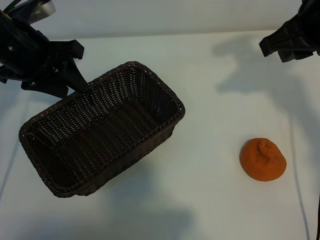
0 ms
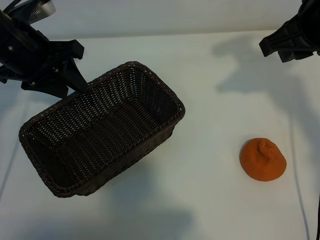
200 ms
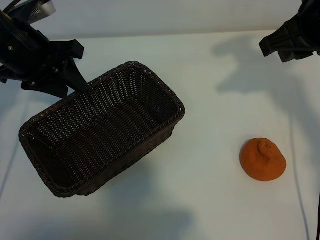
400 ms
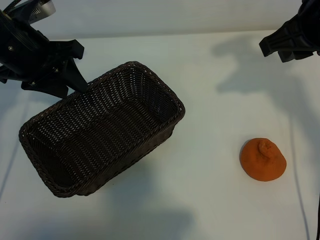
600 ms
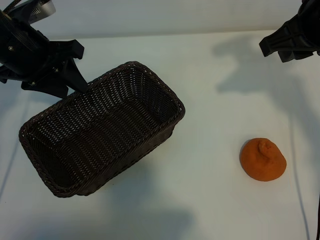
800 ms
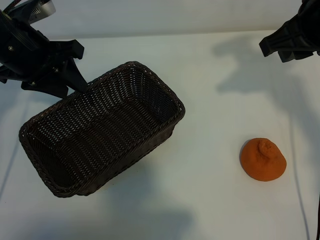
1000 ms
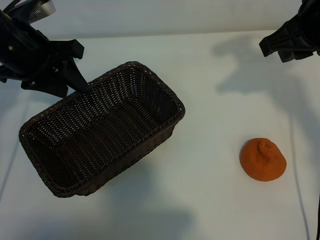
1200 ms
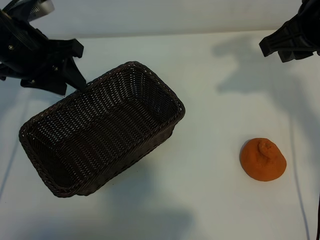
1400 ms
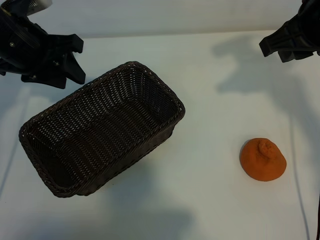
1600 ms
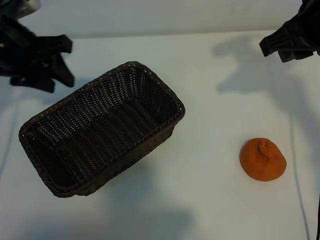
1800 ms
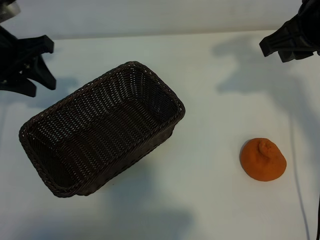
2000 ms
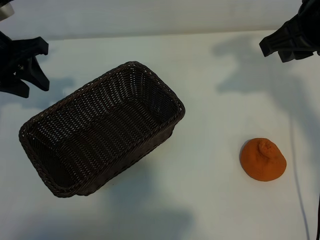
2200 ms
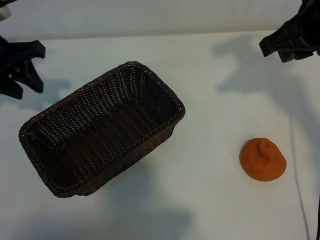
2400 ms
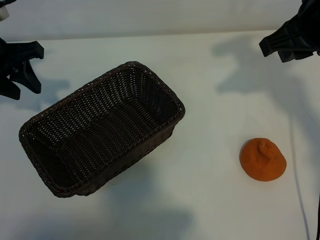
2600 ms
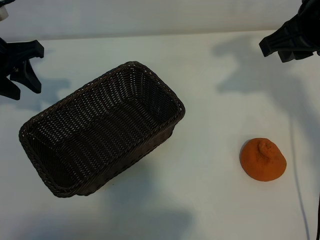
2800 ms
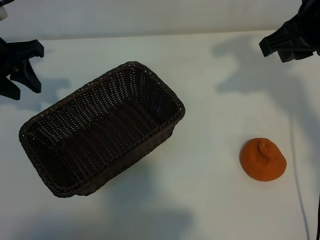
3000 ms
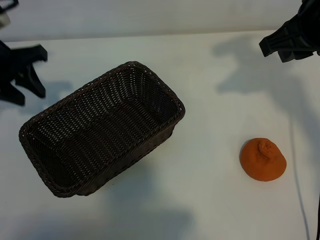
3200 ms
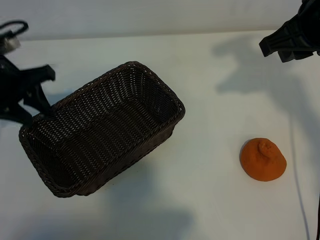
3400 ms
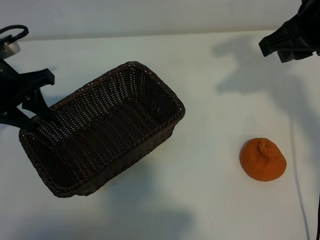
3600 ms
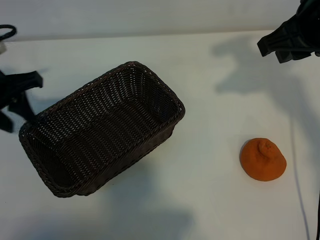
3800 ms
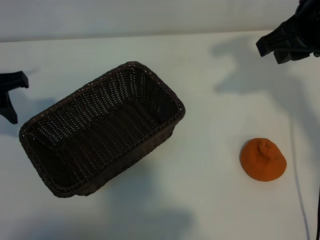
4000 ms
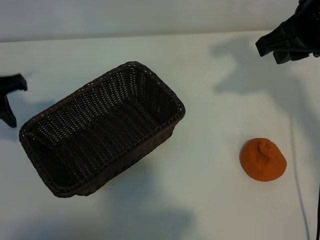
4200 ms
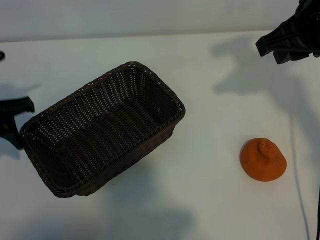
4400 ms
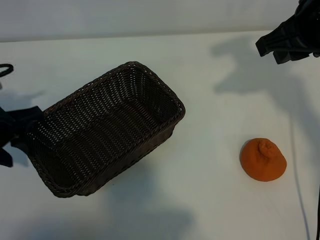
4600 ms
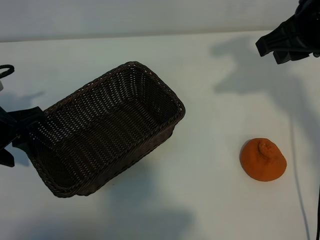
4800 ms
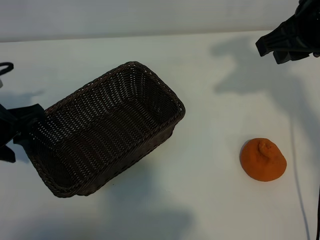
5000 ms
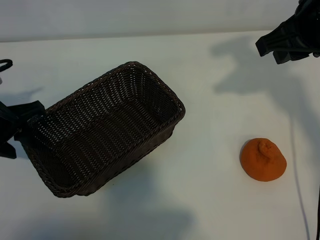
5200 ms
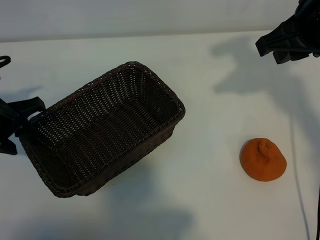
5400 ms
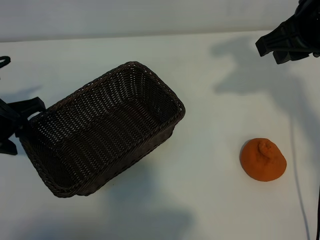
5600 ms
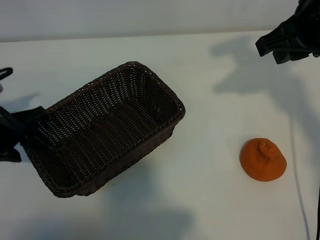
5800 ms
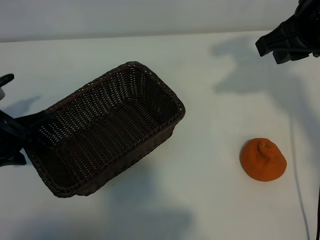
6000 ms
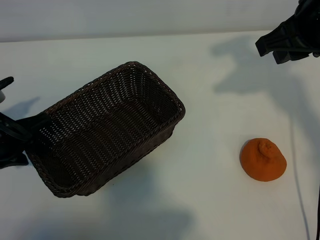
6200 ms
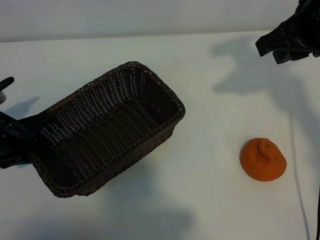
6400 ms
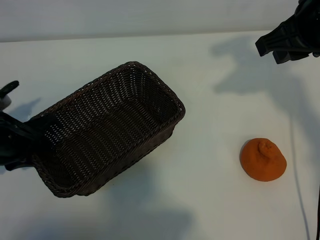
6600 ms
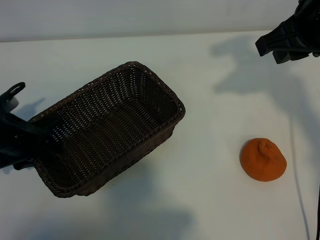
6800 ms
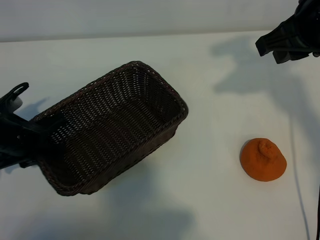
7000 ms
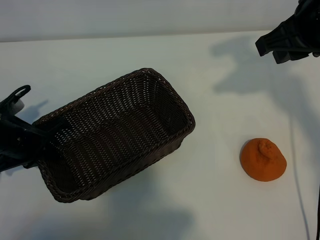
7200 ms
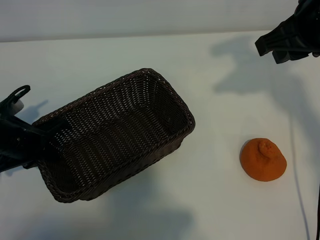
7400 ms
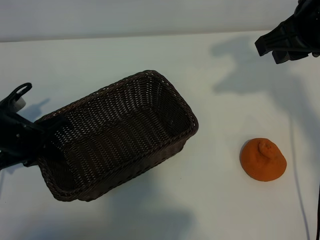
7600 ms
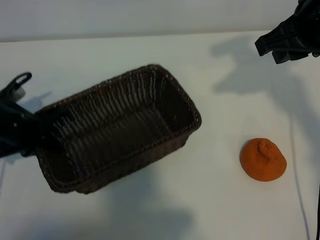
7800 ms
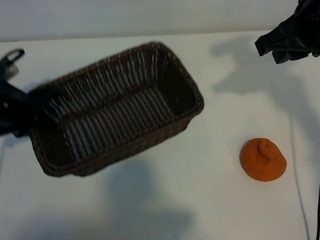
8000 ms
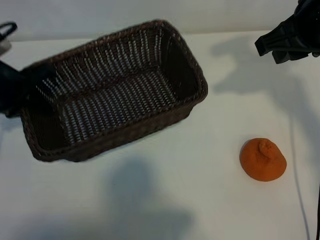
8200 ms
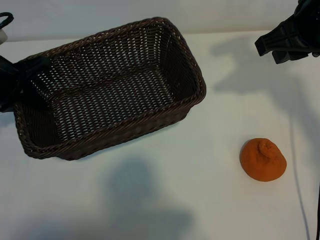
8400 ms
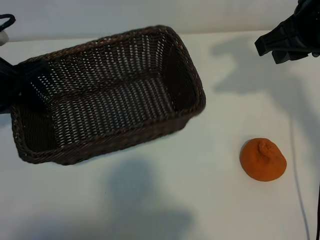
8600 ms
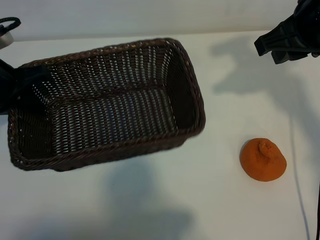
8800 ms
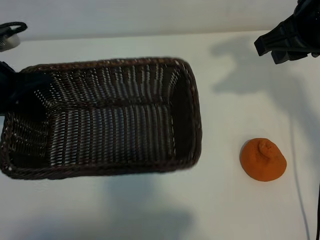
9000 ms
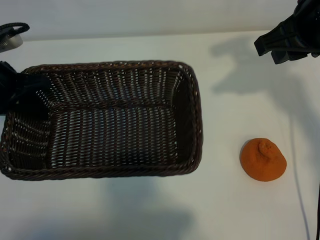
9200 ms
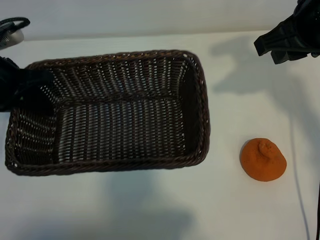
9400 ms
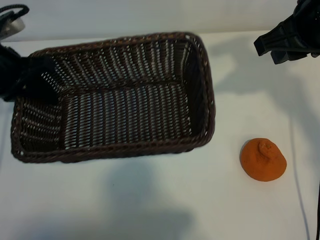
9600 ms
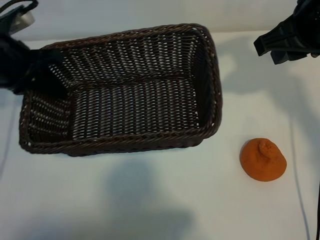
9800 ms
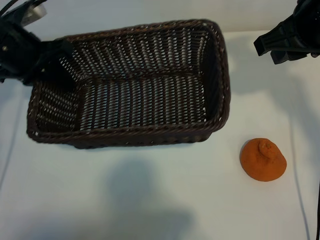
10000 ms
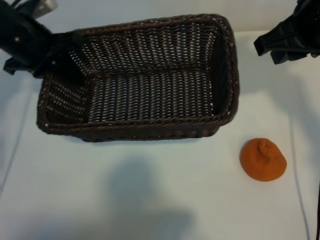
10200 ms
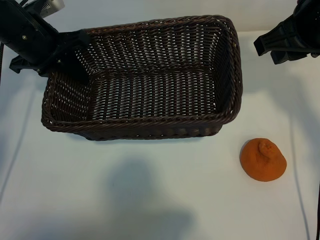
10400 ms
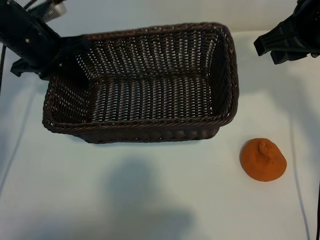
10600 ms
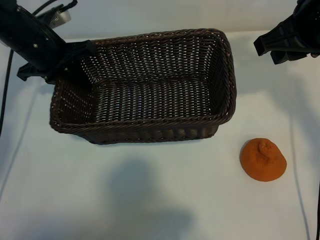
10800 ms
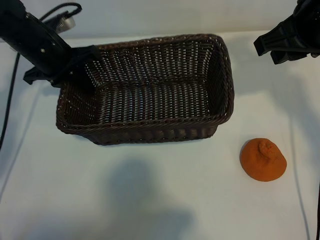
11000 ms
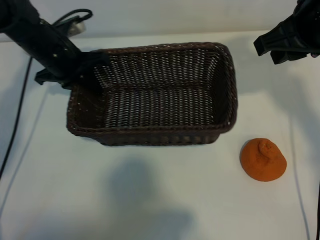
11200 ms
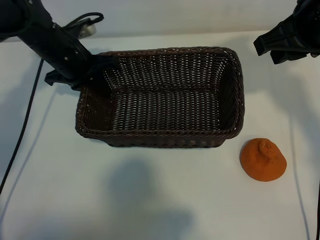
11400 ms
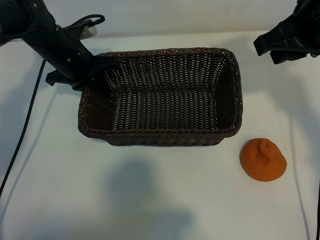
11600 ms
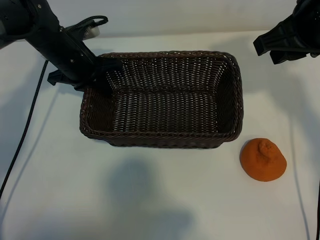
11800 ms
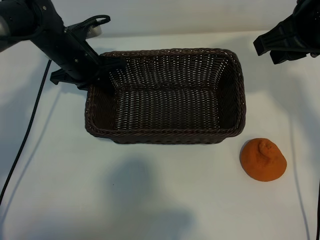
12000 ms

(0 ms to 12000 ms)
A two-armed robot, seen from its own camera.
Task of the whole recording: pick up the orange and put it into the basket.
Step, 1200 ms - 7000 ms: Grasp the basket with left gripper.

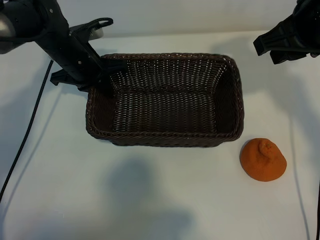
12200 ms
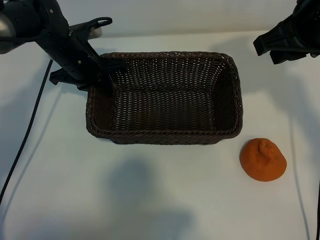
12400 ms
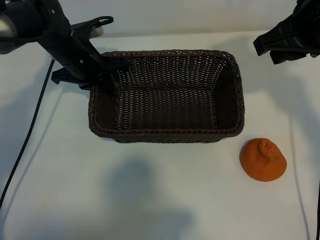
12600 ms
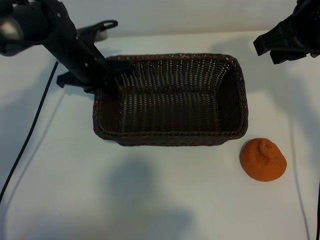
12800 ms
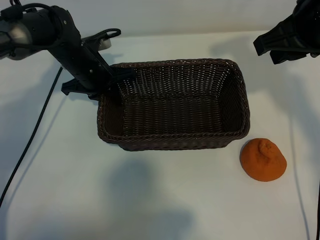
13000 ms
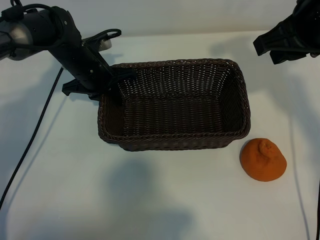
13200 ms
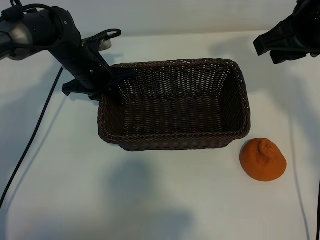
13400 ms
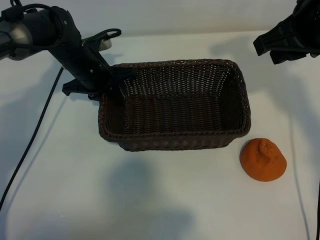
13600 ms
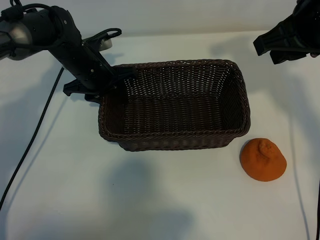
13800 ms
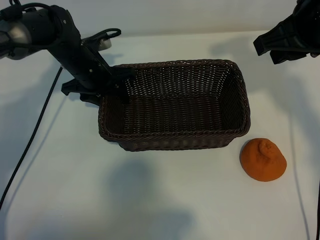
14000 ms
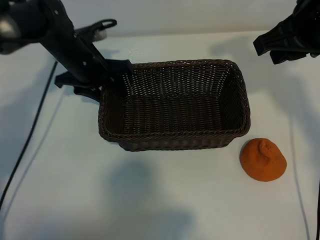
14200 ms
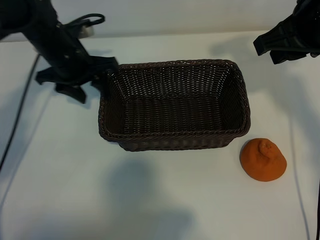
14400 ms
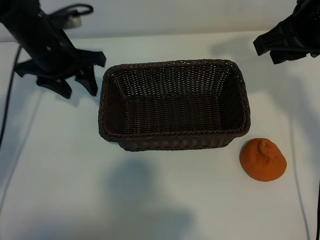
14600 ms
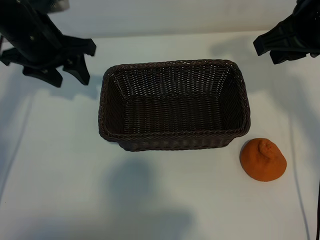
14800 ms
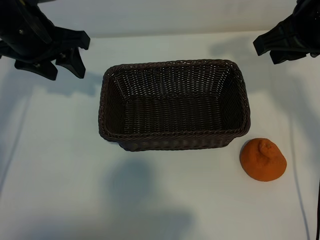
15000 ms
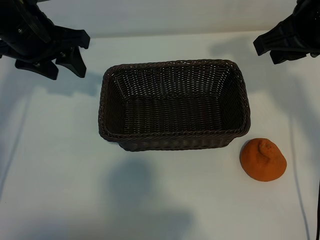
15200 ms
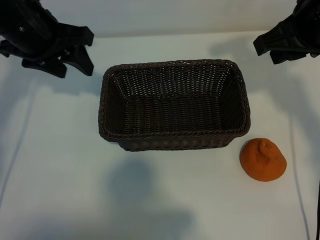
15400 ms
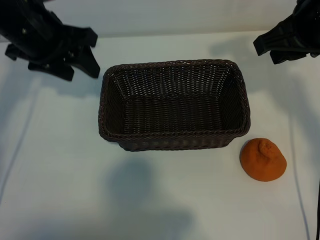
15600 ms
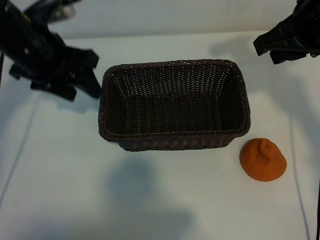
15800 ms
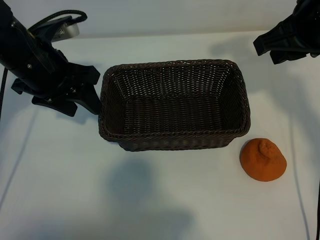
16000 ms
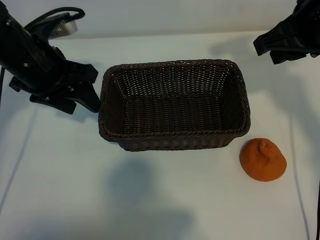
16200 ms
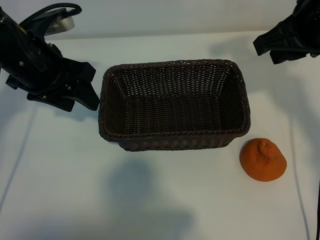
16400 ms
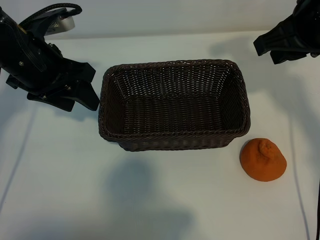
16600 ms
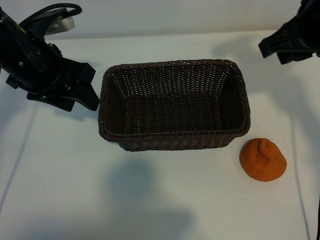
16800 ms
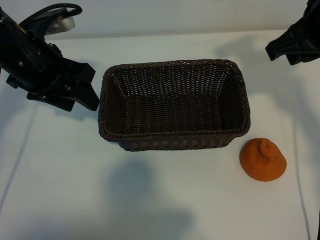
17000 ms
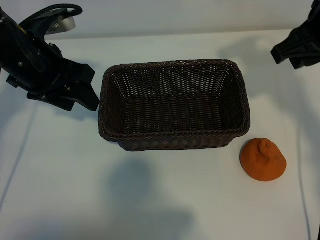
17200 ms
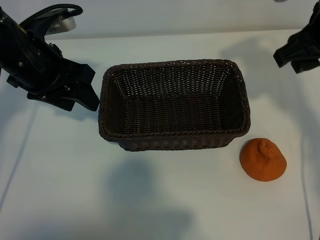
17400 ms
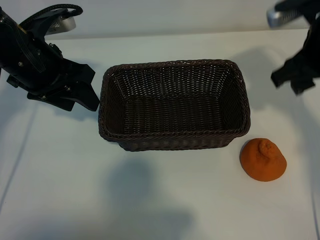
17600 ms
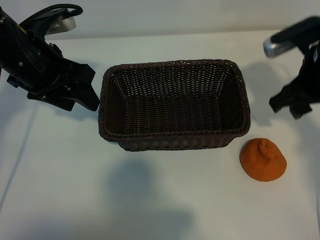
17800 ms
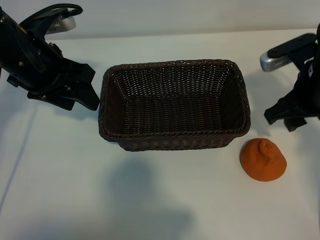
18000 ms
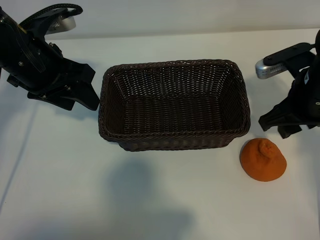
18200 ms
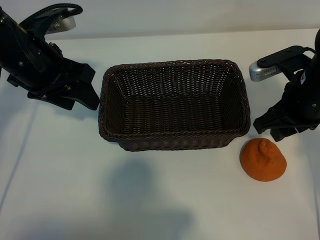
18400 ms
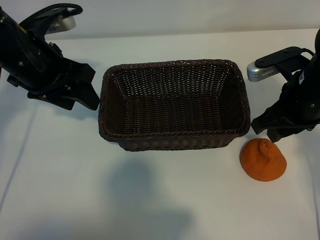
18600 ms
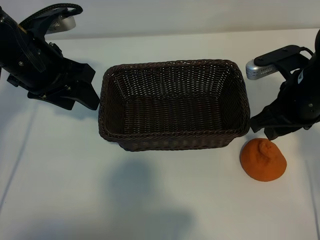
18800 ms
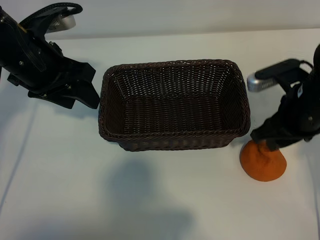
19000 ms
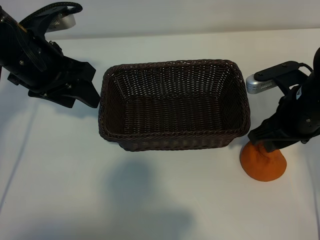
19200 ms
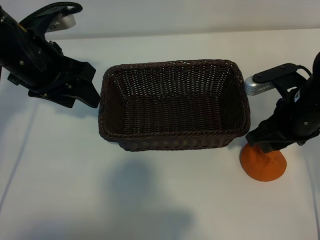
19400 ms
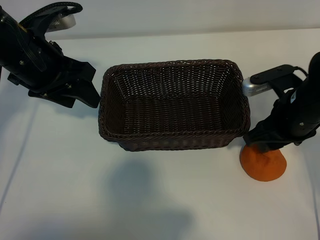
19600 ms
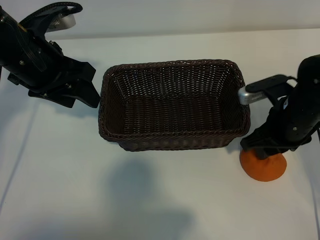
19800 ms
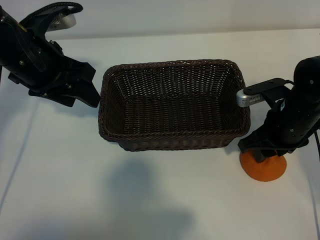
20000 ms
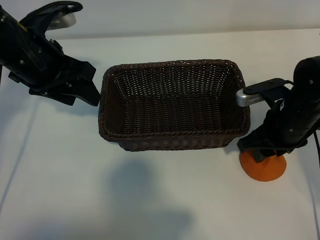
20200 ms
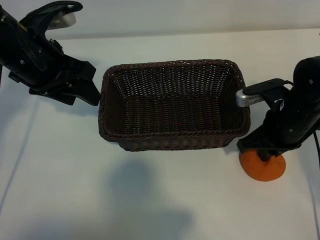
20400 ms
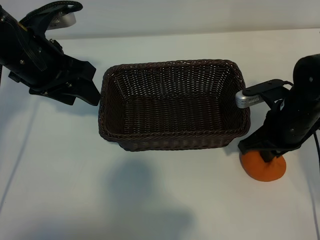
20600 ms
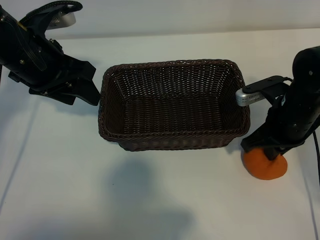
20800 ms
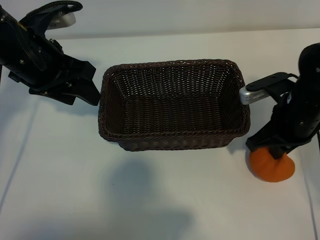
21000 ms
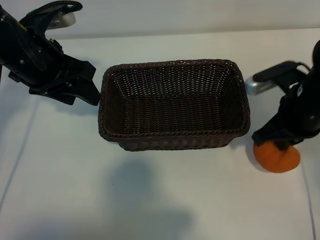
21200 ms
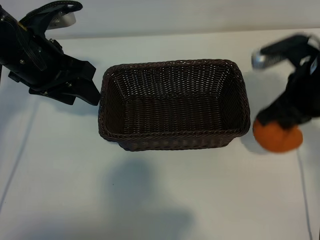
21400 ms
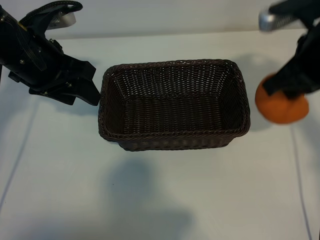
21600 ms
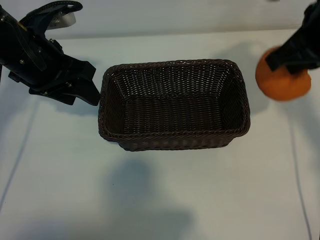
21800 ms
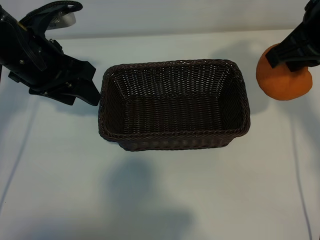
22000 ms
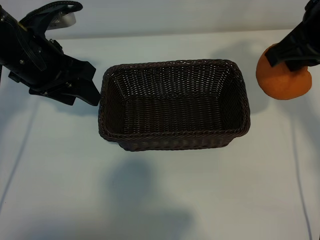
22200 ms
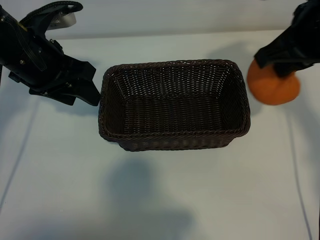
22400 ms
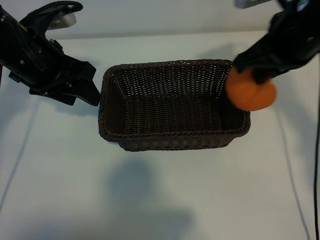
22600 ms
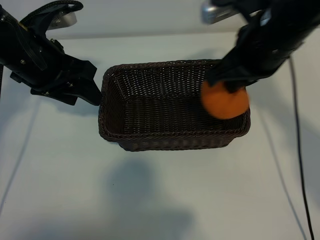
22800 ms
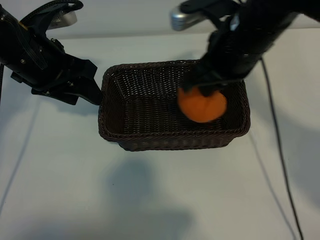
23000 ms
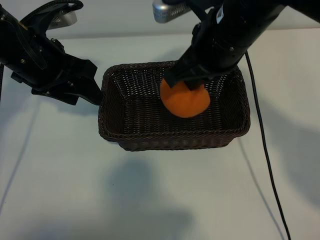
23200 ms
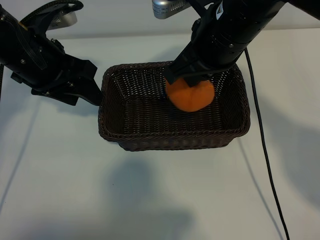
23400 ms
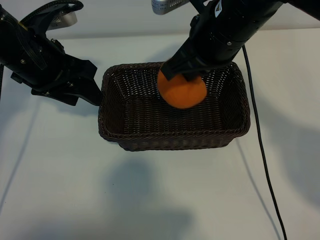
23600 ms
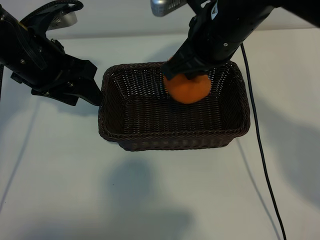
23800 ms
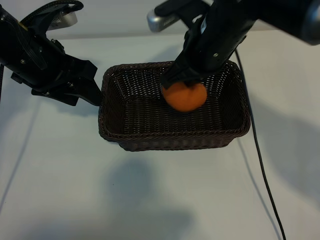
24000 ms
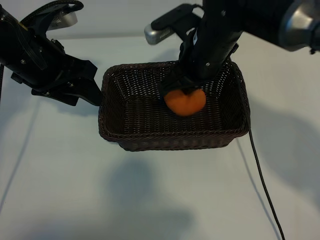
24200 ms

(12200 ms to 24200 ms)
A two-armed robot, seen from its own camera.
Task of the whole recording: pick up the orange and put it into the basket.
Step, 13800 ms - 20400 ms: Grasp the orange with right gripper.
